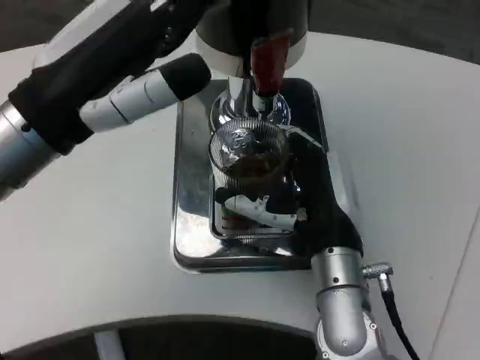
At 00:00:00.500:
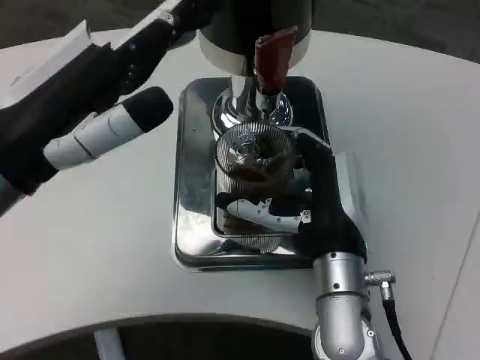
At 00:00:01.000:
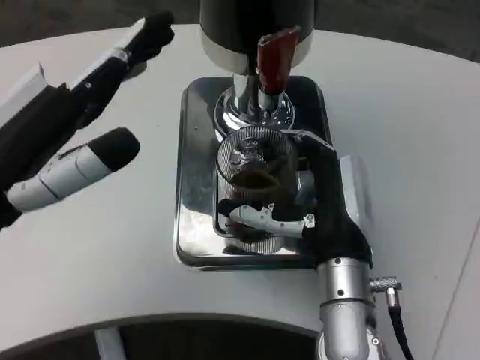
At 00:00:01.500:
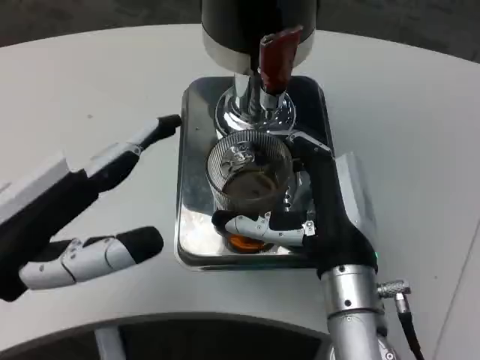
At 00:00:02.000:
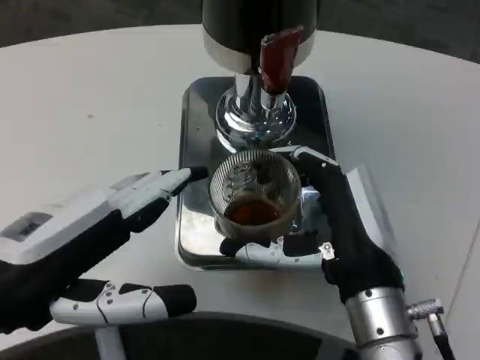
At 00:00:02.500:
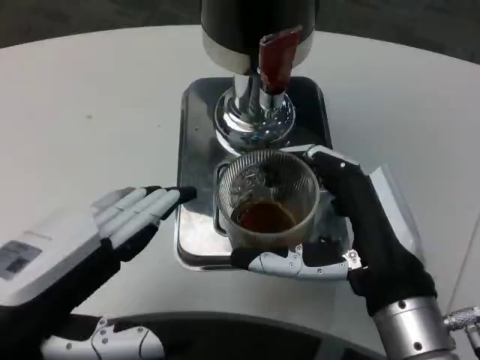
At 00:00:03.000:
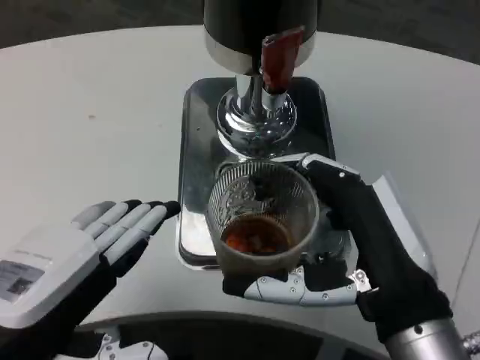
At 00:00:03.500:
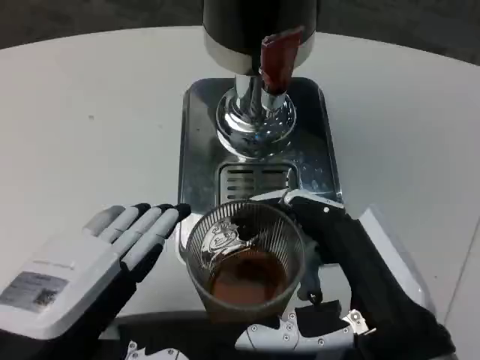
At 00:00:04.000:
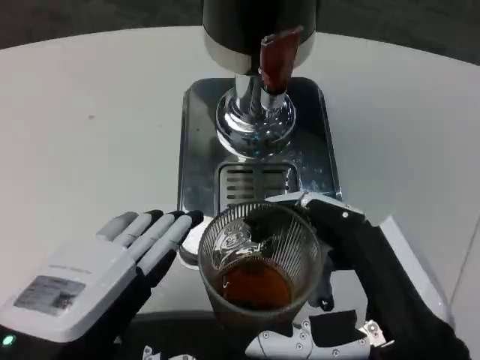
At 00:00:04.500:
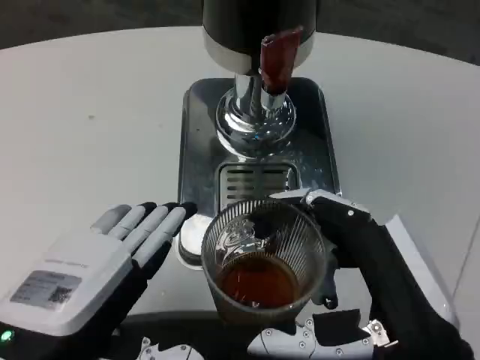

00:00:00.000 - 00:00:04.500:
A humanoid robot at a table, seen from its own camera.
Task of the whole recording: Grasp the cup under the faucet to collect the drink, then remove the cup.
00:00:00.000 - 00:00:02.000: The left hand shifts approximately 10 cm backward and downward. Meanwhile the right hand heads backward, covering about 5 cm.
00:00:02.000 - 00:00:04.500: The right hand goes about 10 cm backward. The left hand ends up roughly 5 cm from where it was.

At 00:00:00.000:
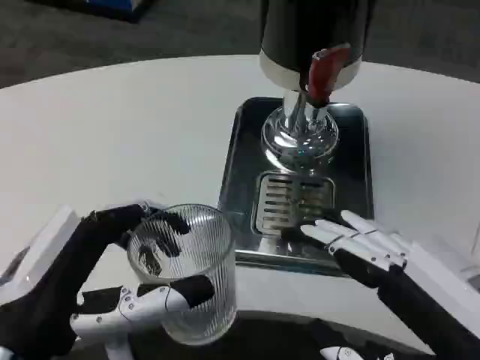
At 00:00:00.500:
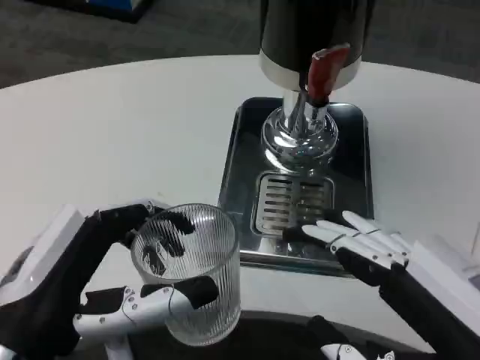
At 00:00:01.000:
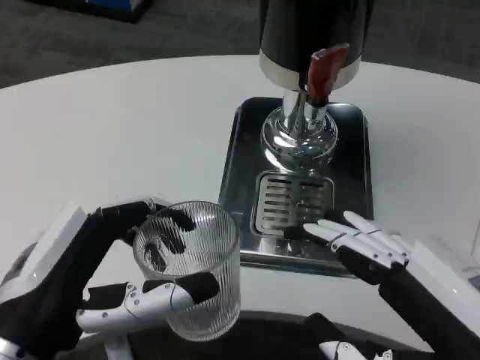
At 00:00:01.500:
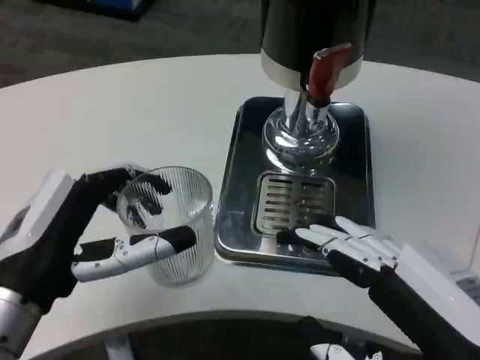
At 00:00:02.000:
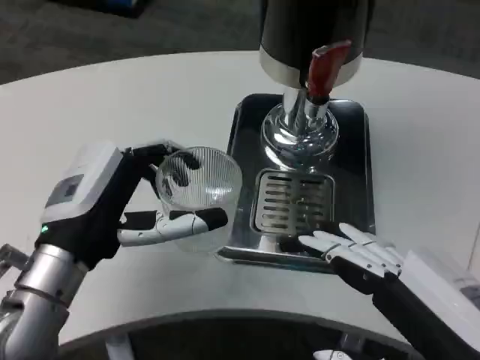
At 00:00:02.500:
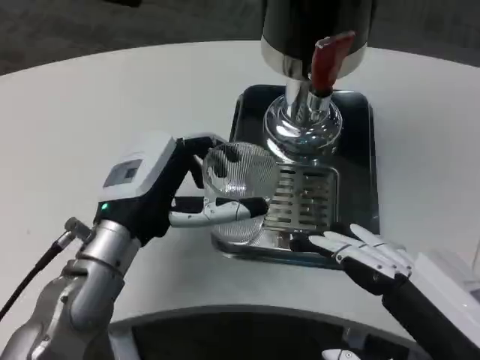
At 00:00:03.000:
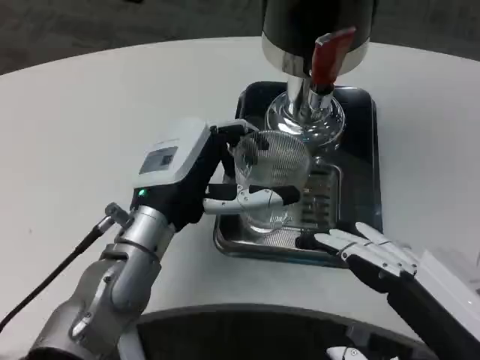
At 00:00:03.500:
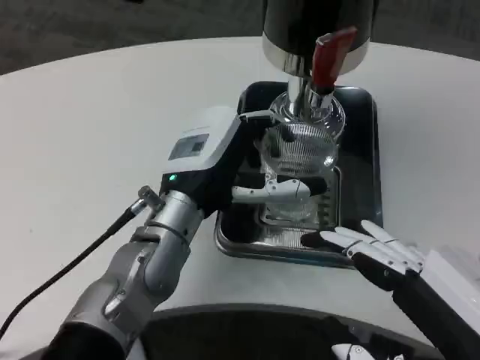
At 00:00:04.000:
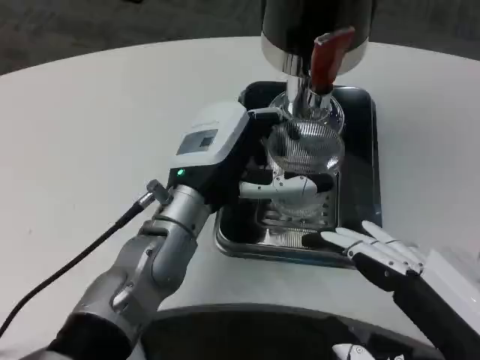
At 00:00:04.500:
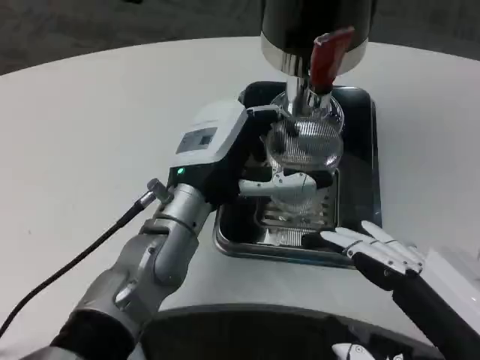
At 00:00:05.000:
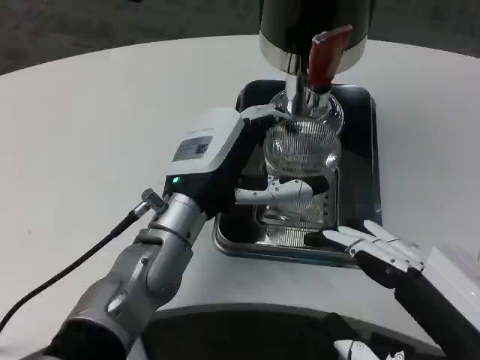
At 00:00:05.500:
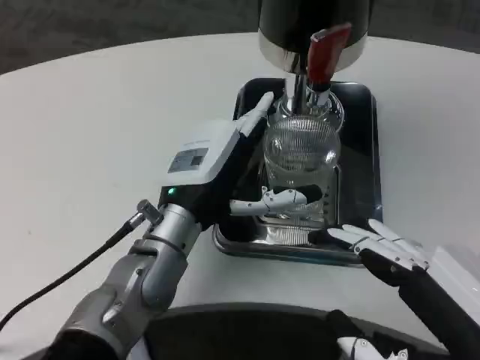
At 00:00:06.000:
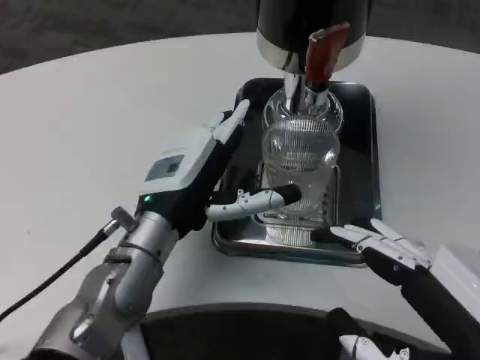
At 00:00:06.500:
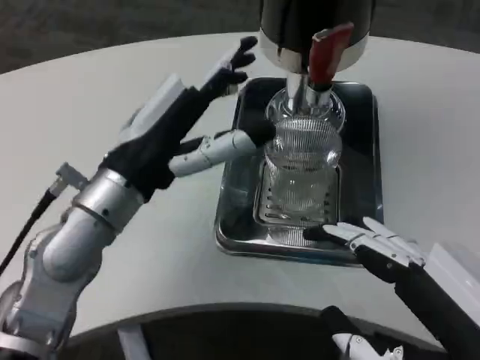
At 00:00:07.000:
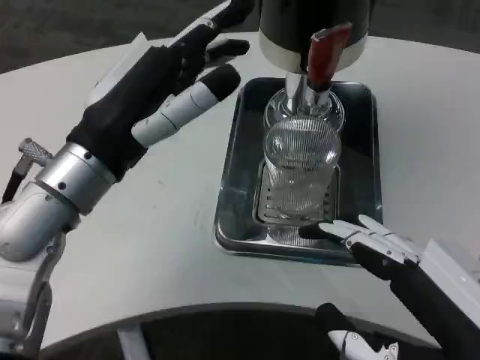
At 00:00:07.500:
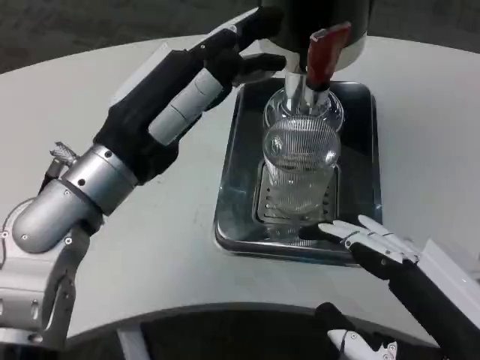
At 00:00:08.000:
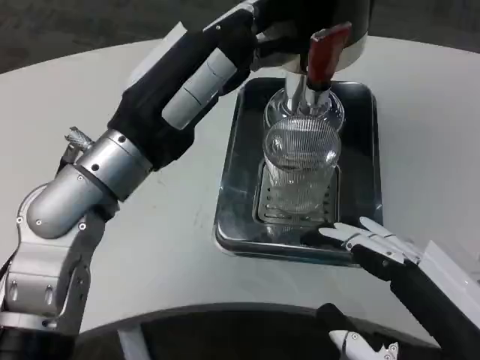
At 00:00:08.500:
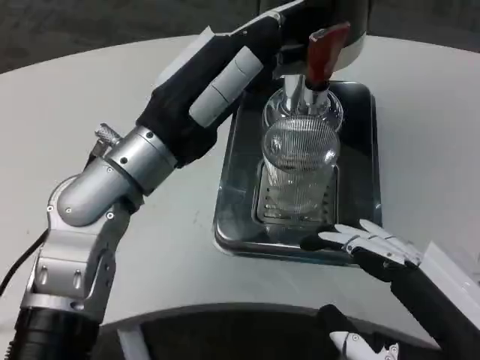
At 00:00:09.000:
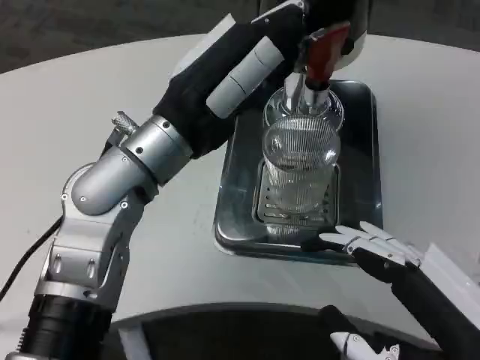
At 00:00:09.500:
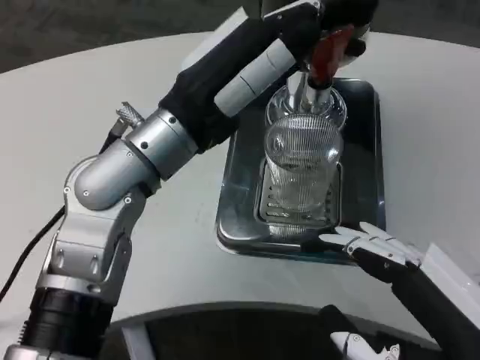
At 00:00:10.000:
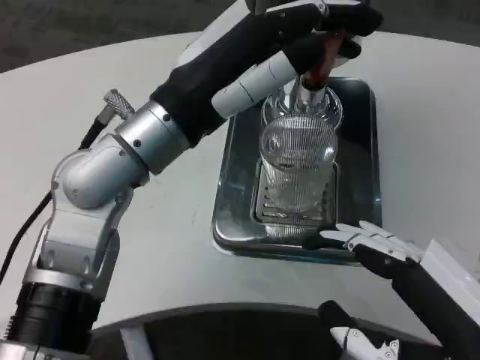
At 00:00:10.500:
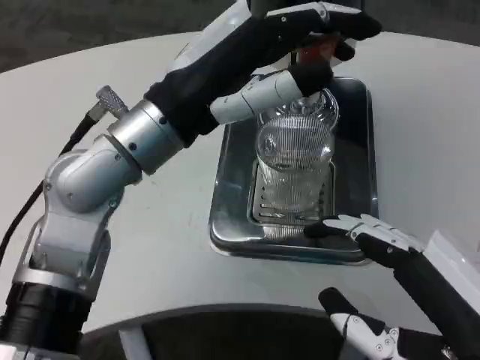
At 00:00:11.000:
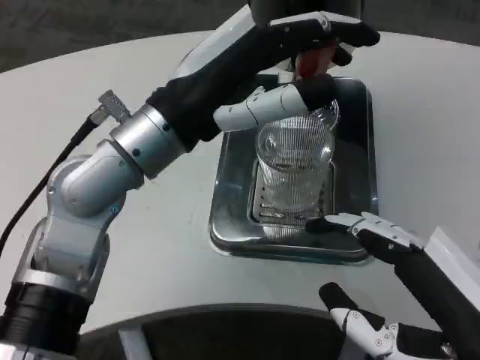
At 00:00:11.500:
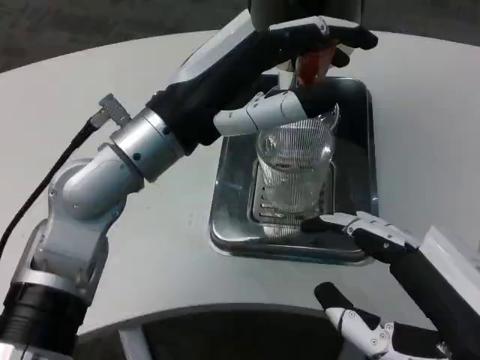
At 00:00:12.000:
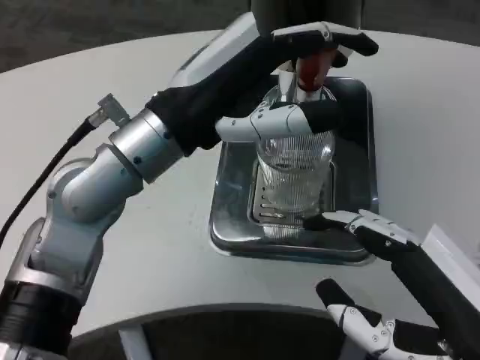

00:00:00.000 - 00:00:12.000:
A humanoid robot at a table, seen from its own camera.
Task of the whole recording: Grasp the cup under the faucet to collect the drink, then remove the cup.
00:00:00.000 - 00:00:02.000: The left hand is displaced forward by some 10 cm.
00:00:02.000 - 00:00:04.000: The left hand moves to the right and forward, about 10 cm.
00:00:06.000 - 00:00:08.000: The left hand is displaced upward by some 10 cm.

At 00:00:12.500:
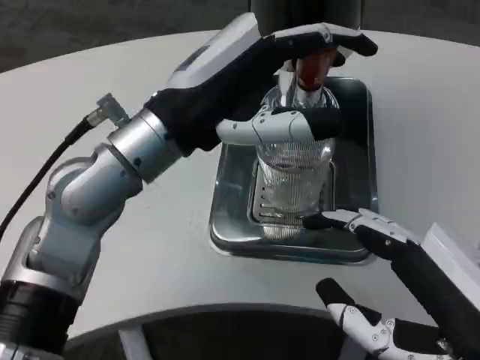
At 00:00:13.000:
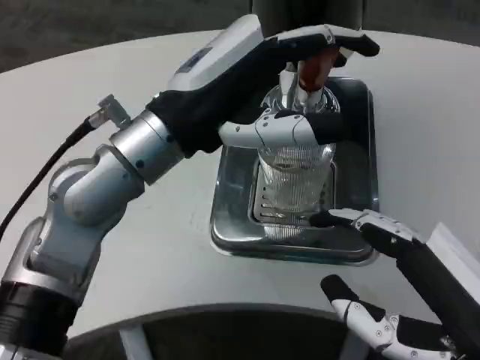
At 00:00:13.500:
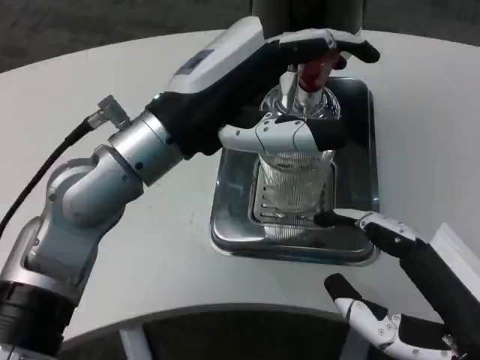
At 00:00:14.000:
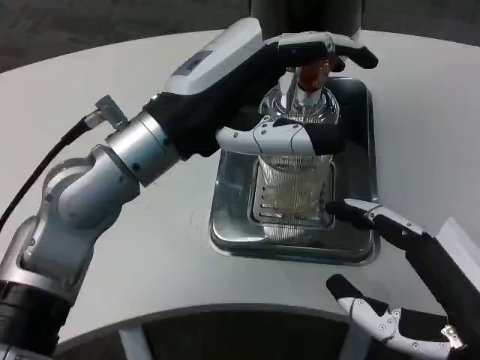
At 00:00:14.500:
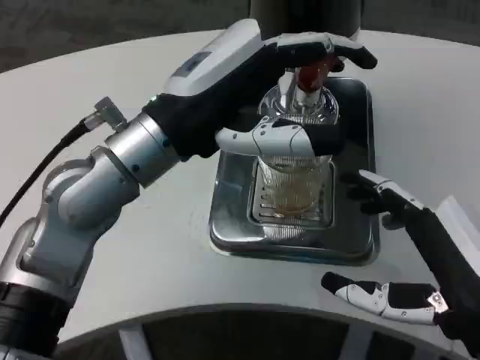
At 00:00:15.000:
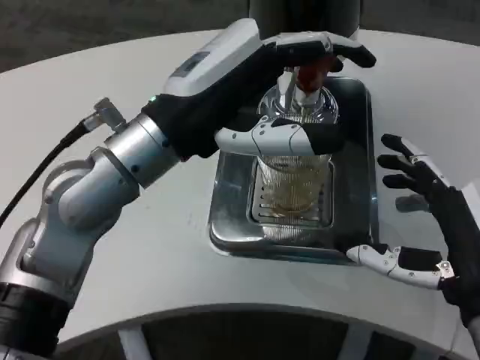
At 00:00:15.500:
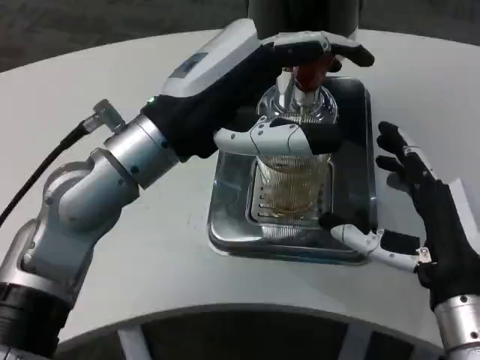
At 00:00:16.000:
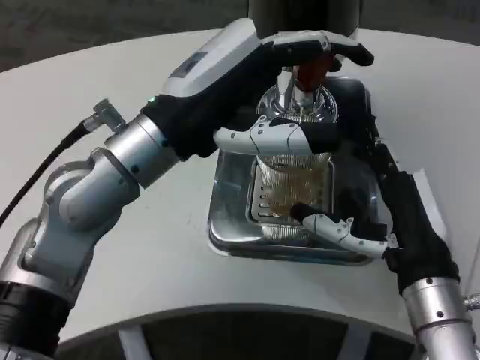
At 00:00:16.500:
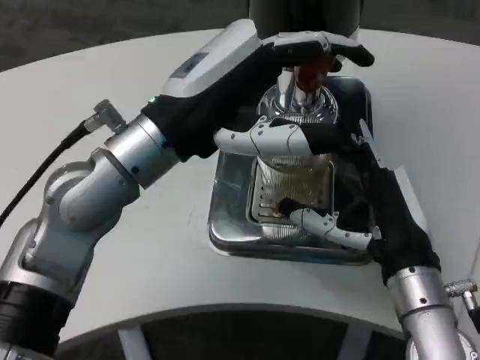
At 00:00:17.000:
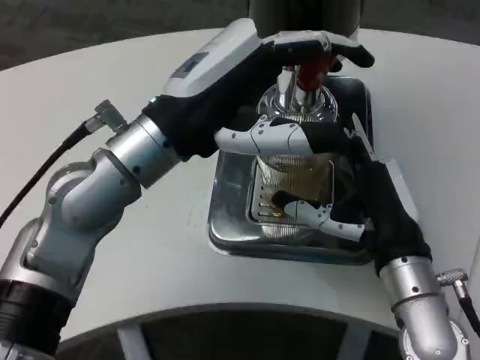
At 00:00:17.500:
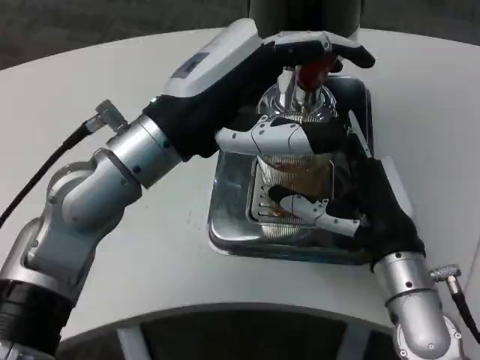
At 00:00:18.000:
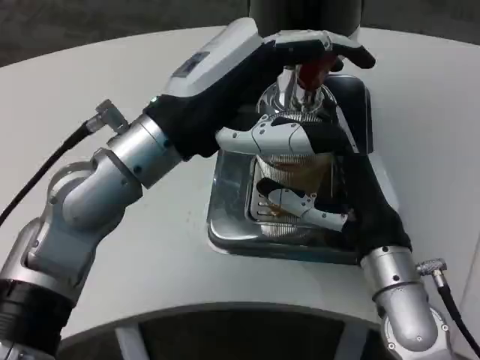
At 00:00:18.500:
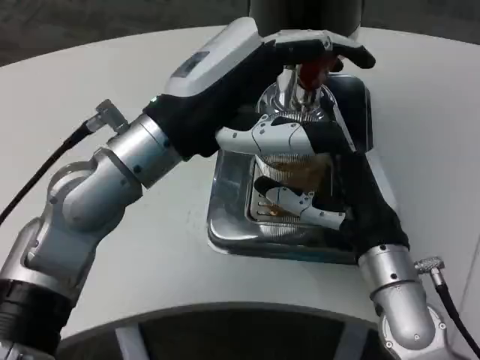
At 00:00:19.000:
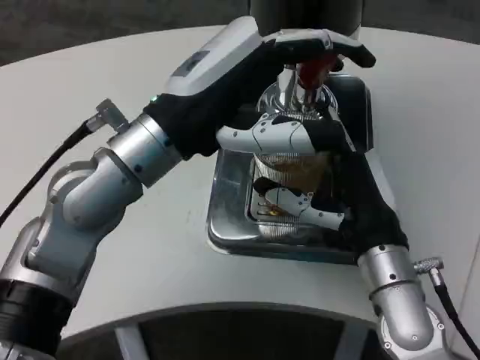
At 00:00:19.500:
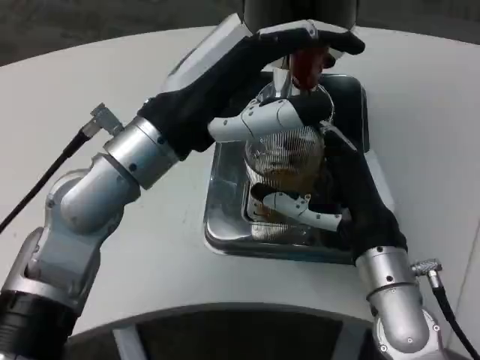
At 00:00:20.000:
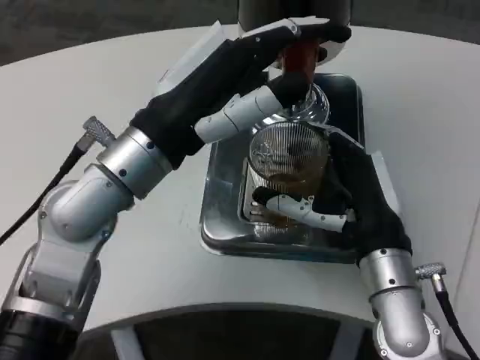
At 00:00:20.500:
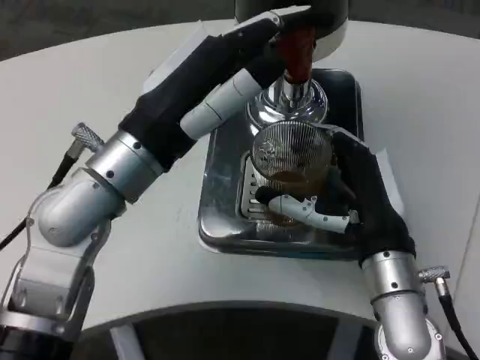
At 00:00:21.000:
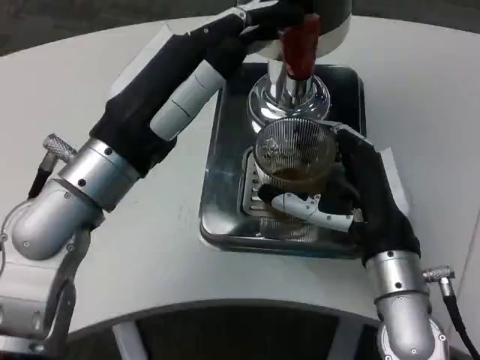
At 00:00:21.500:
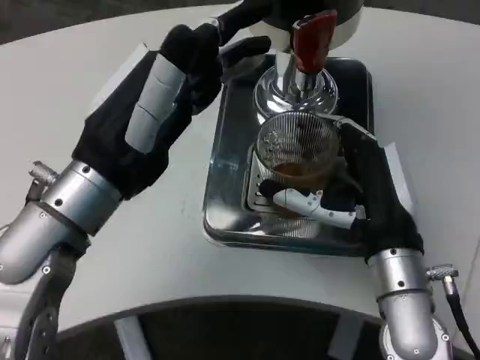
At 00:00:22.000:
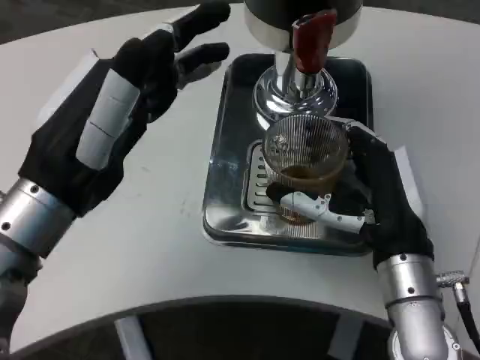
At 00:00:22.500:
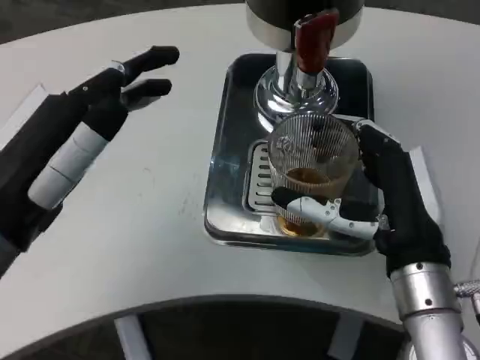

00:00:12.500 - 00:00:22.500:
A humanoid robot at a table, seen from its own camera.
Task of the whole recording: Grasp the cup under the faucet to collect the drink, then remove the cup.
00:00:14.500 - 00:00:16.500: The right hand is displaced forward by roughly 10 cm.
00:00:16.500 - 00:00:18.500: There are only small adjustments of the hands.
00:00:20.500 - 00:00:22.500: The left hand is displaced backward and to the left by roughly 10 cm.
